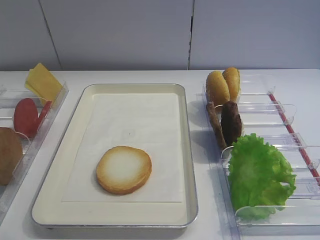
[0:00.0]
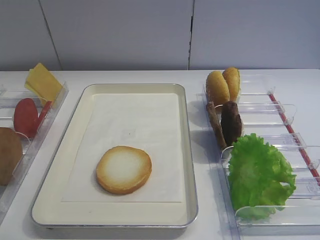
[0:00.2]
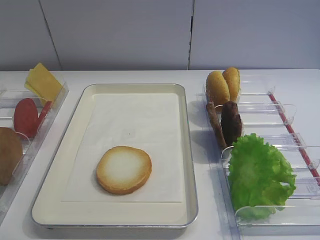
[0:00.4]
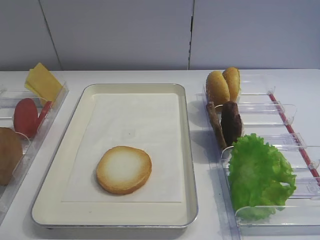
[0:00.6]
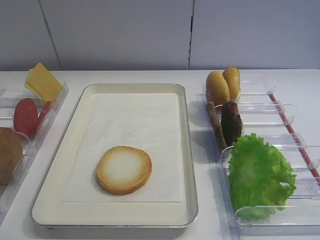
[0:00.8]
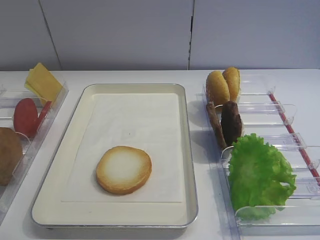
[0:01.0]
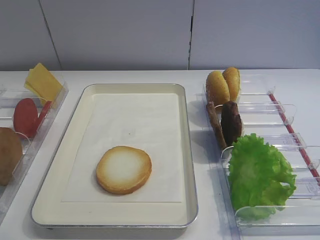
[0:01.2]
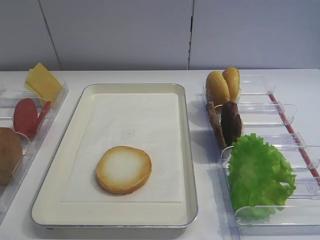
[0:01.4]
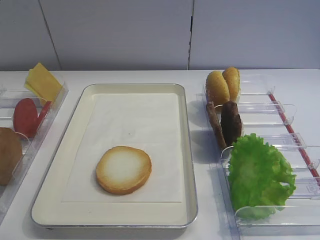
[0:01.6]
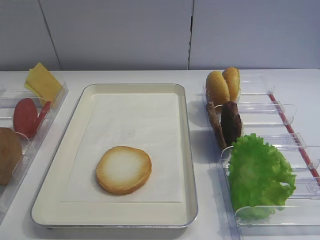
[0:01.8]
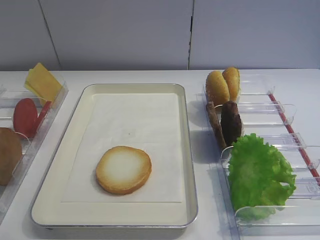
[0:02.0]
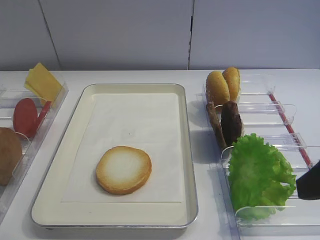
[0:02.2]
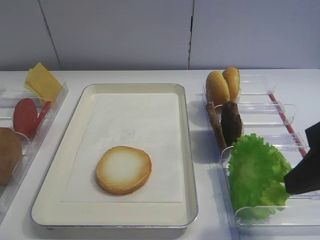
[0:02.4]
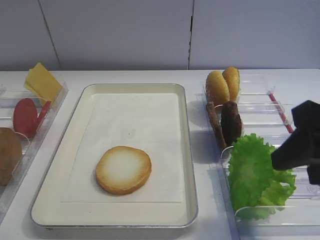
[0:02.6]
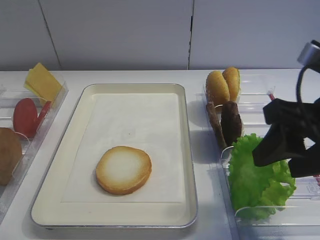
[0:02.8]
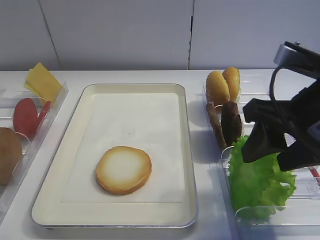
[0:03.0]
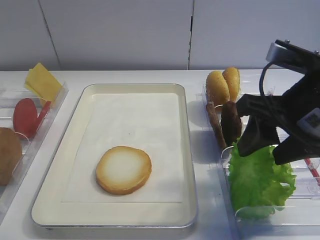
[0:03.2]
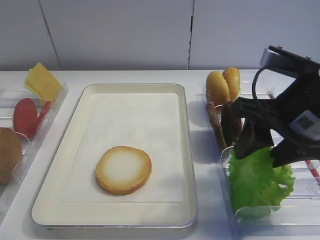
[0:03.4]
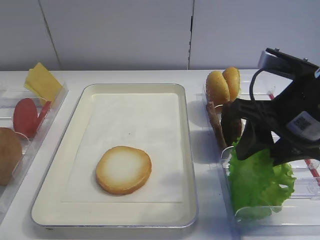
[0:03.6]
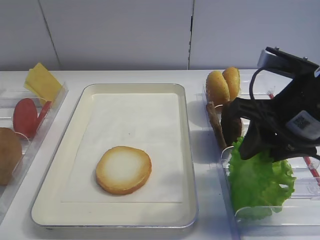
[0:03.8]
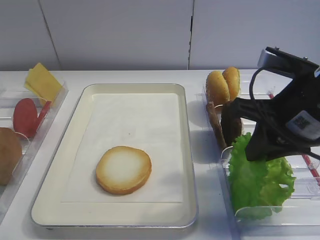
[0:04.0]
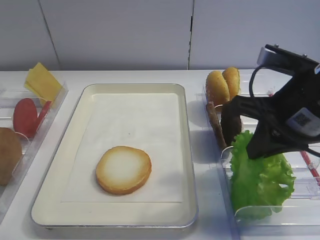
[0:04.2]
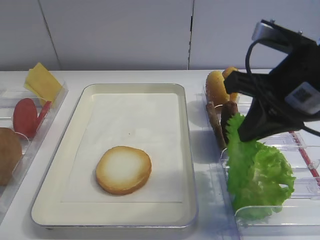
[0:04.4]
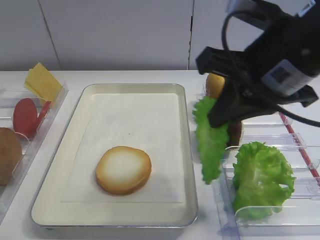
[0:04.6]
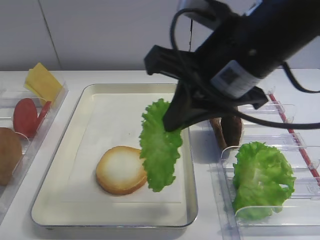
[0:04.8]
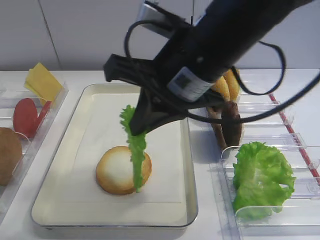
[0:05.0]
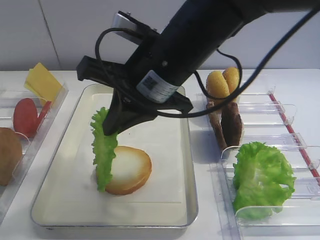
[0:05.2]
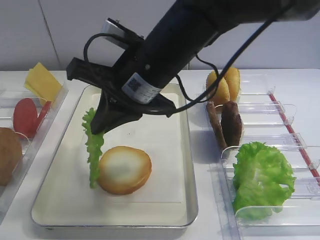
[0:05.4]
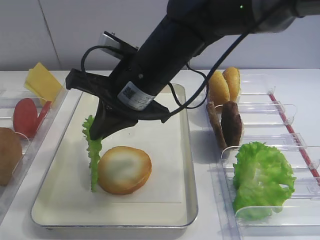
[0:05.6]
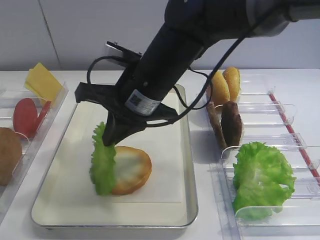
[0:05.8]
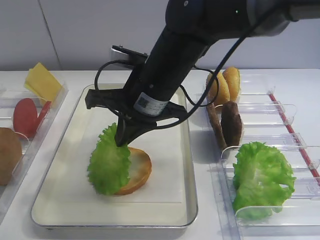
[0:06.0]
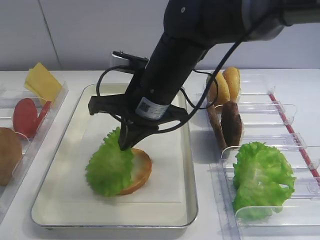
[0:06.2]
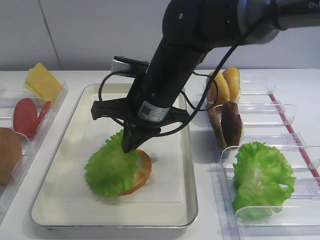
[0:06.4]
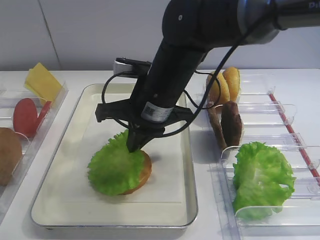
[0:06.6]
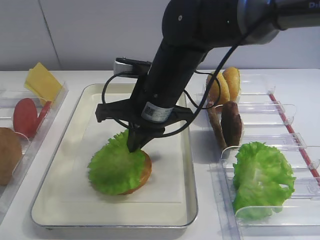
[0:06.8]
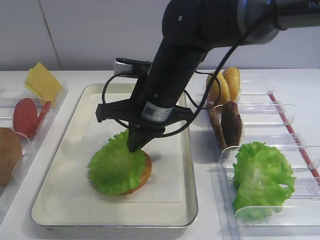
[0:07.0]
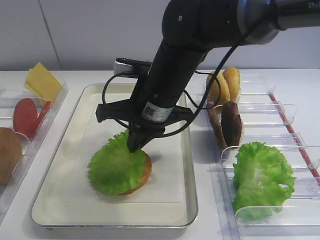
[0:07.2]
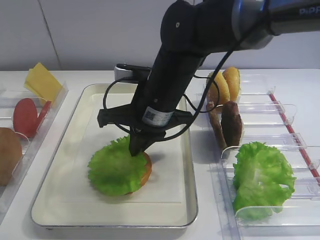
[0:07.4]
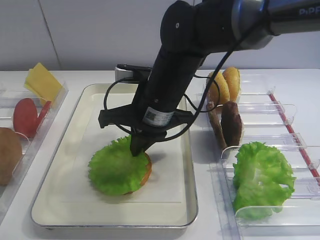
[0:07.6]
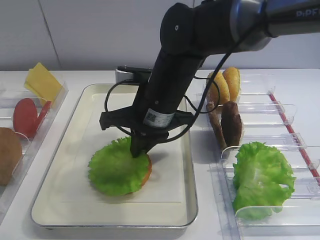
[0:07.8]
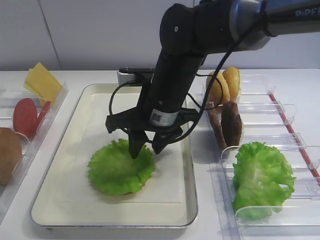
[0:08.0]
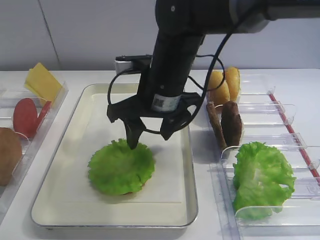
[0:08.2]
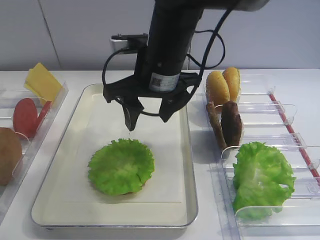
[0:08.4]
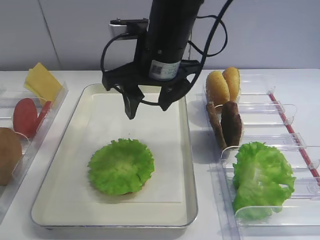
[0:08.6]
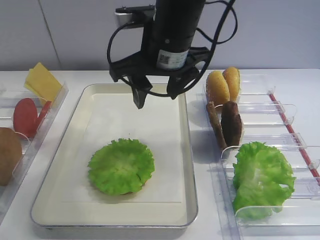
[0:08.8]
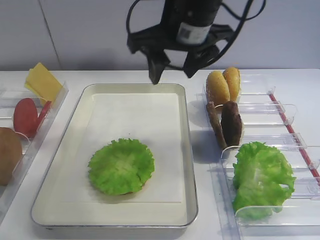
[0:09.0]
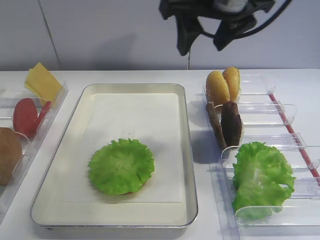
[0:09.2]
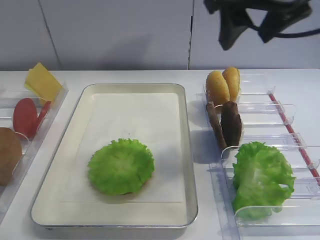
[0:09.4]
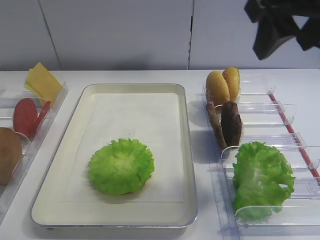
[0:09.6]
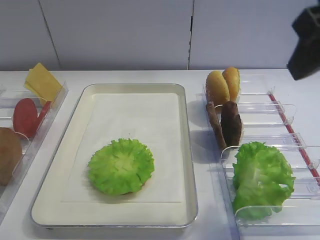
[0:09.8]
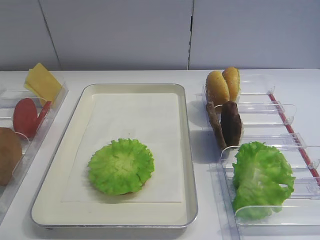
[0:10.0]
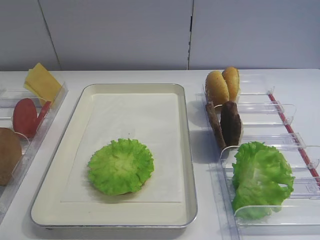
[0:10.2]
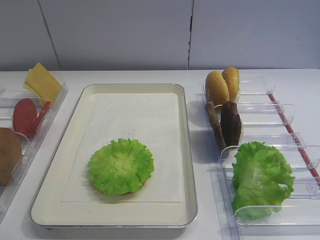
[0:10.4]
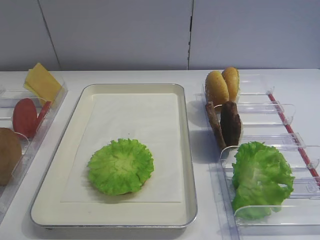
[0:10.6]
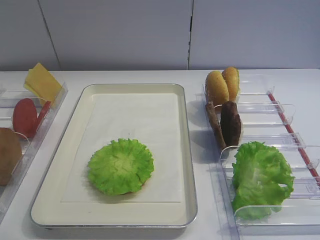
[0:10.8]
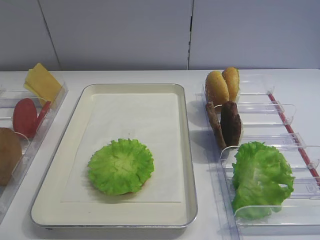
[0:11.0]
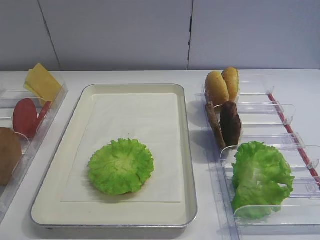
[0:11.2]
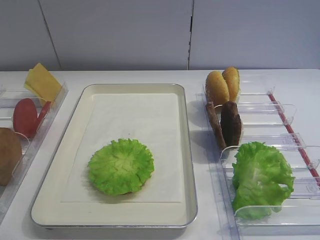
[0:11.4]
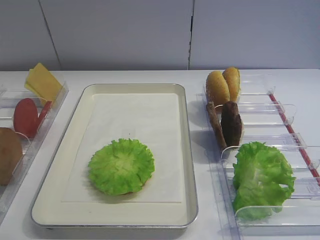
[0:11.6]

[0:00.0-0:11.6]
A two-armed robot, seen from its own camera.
Step, 0:00.0 to 0:04.4: Pick up the lettuce leaf with the right gripper.
Step, 0:04.6 to 0:08.6: Place the lettuce leaf on the bread slice with the right gripper.
0:01.4 to 0:02.8: The right gripper heads forward, covering some 15 cm.
0:02.8 to 0:04.4: The right gripper heads forward, covering about 5 cm, and closes up.
0:04.4 to 0:05.8: The right gripper moves to the left, about 20 cm.
0:05.8 to 0:07.2: The grippers make only small movements.
0:07.2 to 0:08.8: The right gripper shifts roughly 5 cm upward, and opens.
0:08.8 to 0:10.2: The right gripper goes some 30 cm backward and to the right.
0:10.2 to 0:11.6: The right gripper heads downward and backward, covering some 15 cm.

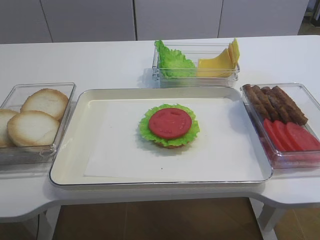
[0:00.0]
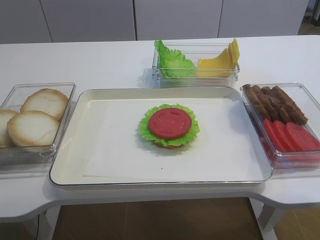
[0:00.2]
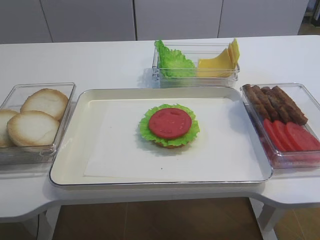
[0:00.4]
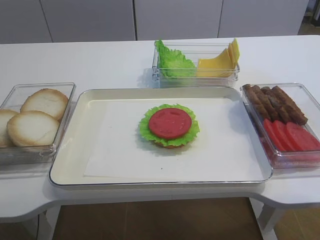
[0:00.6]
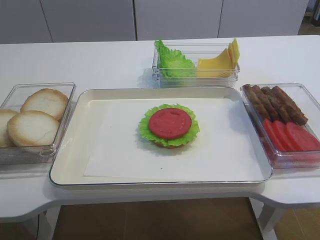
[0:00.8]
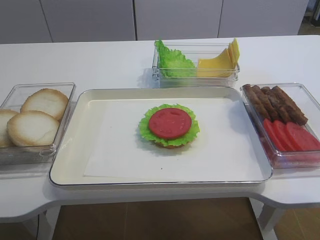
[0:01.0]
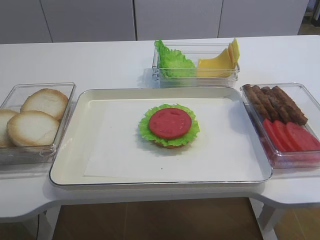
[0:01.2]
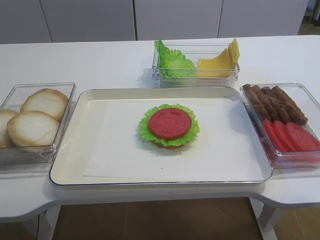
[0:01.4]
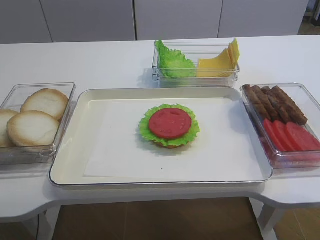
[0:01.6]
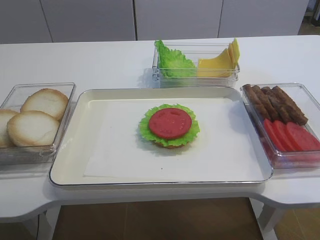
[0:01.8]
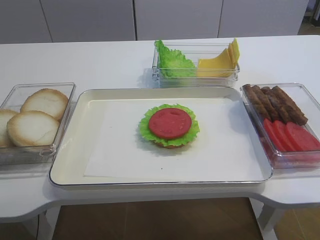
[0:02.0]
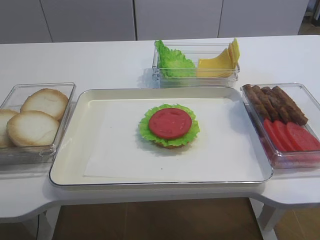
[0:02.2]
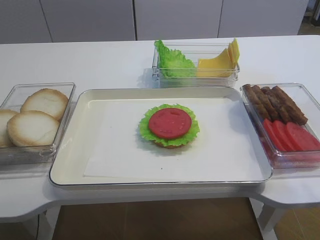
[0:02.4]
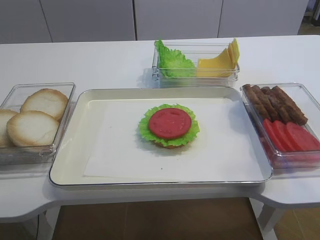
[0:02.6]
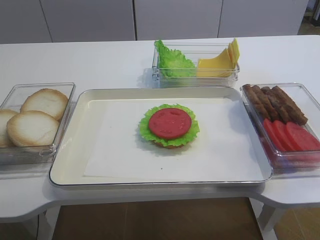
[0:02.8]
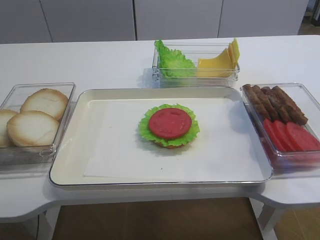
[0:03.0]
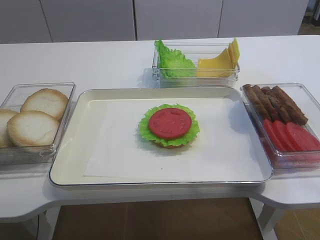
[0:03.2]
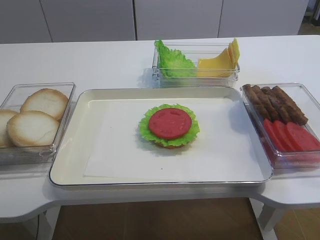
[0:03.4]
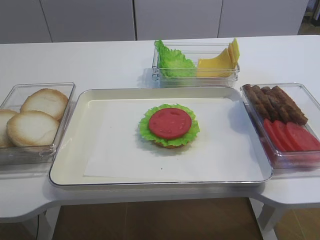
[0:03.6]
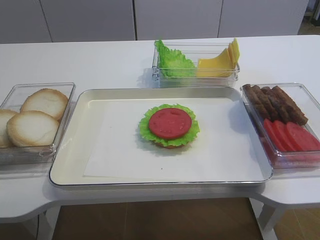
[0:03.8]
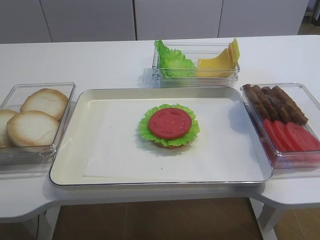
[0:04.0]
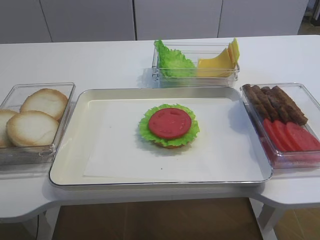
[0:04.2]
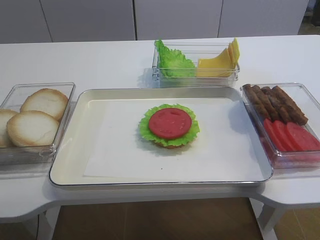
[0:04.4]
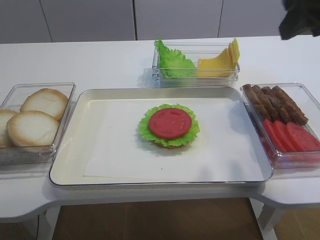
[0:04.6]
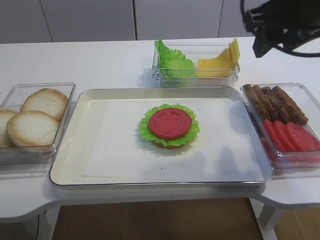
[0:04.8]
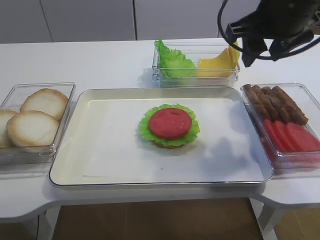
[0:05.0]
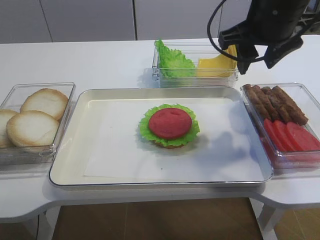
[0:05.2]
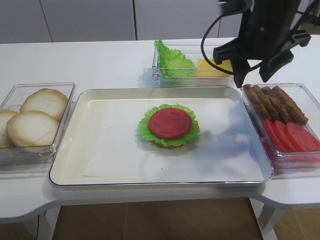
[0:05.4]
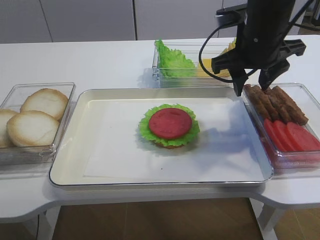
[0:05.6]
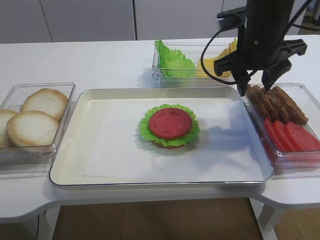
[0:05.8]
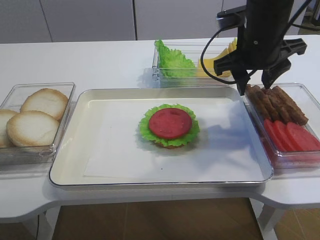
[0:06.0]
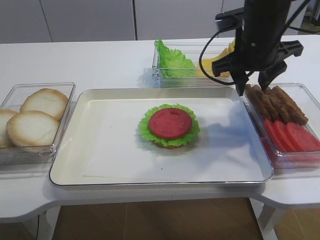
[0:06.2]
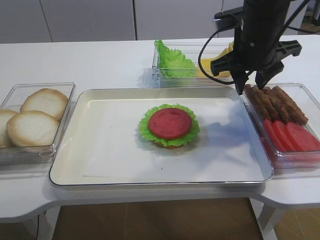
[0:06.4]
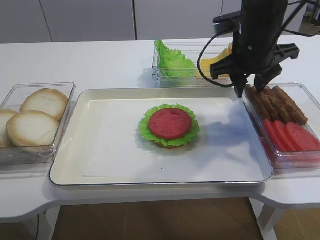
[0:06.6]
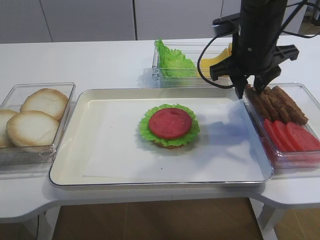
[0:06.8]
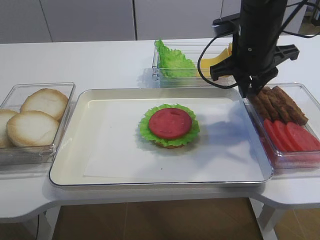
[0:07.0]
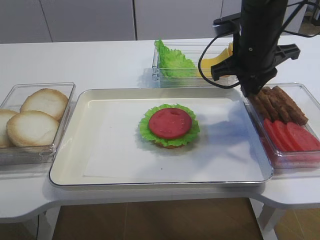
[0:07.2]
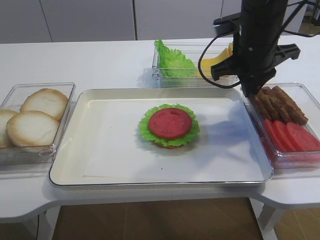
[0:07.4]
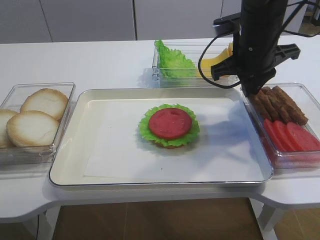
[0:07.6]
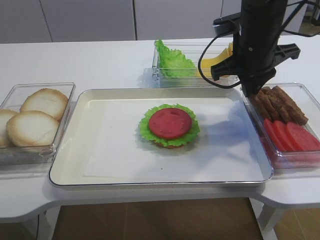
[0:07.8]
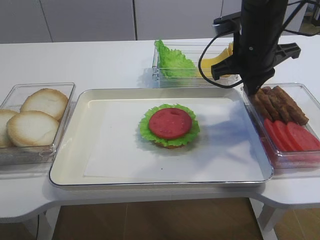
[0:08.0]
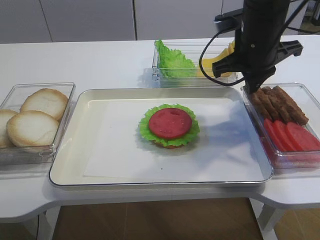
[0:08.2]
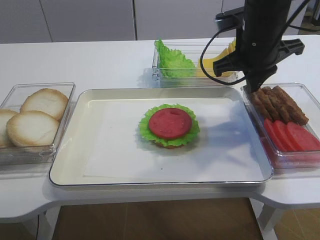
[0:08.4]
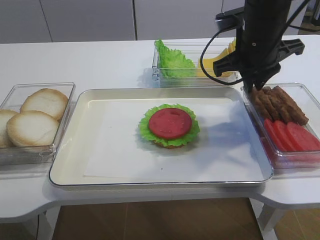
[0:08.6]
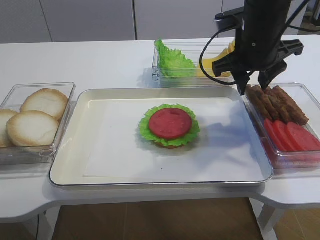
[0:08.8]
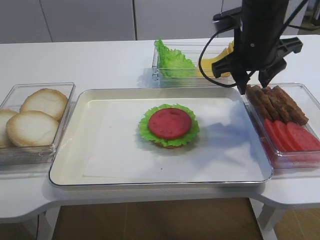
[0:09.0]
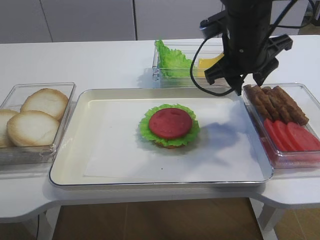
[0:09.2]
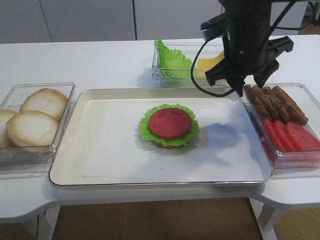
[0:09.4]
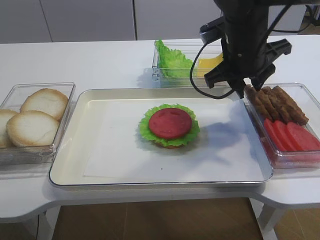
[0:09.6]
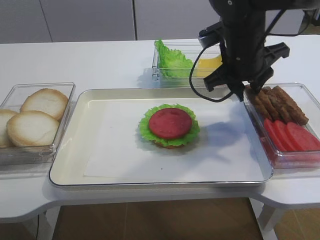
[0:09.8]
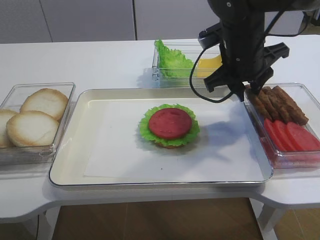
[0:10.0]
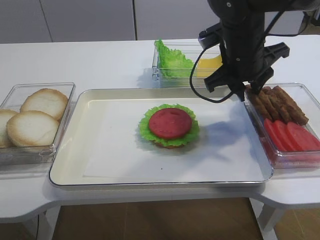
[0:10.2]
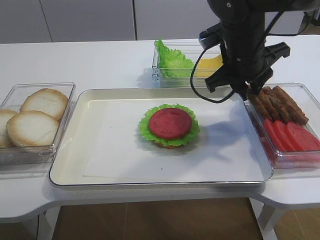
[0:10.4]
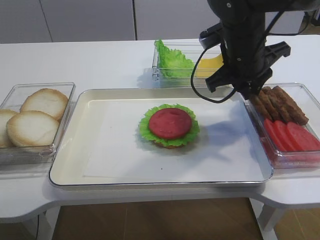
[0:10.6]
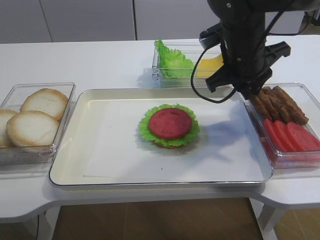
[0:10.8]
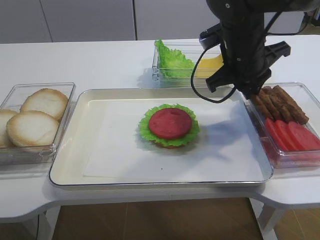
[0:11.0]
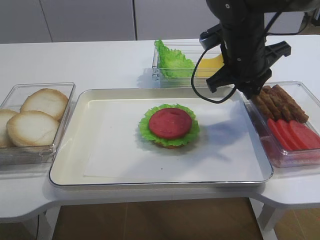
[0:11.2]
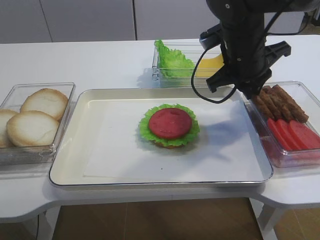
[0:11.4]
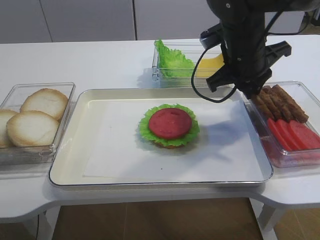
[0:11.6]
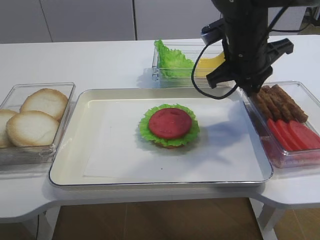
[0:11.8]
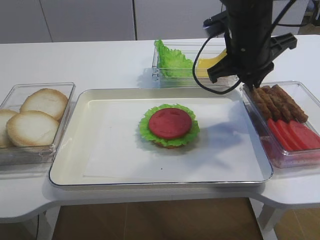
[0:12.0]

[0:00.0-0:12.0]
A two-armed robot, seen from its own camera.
0:01.6 to 0:03.0: The right gripper goes about 10 cm upward and forward.
0:03.0 to 0:04.4: The right gripper goes about 15 cm forward.
0:04.4 to 0:06.0: The right gripper shifts about 20 cm forward, downward and to the left.
0:06.0 to 0:07.6: The right gripper closes its fingers.
0:07.6 to 0:09.0: The right gripper opens up.
0:09.0 to 0:10.4: The right gripper closes its fingers.
0:10.4 to 0:12.0: The right gripper closes.
